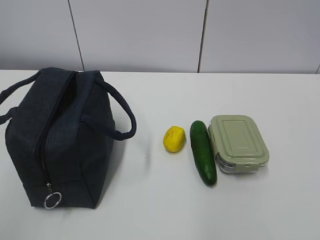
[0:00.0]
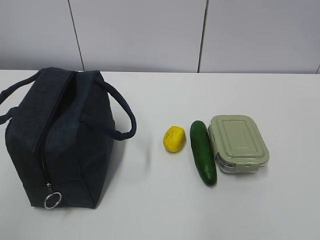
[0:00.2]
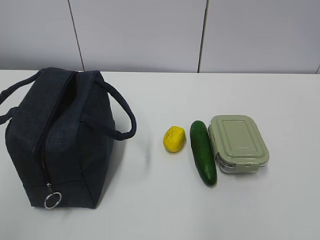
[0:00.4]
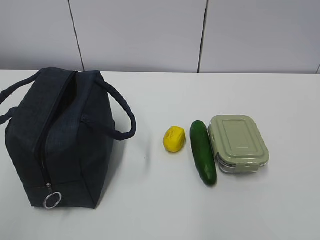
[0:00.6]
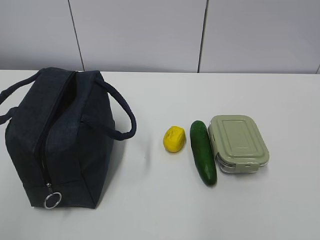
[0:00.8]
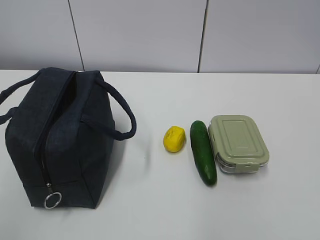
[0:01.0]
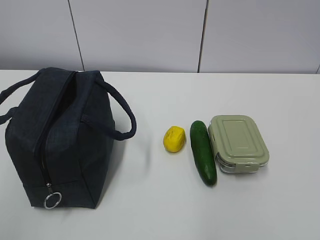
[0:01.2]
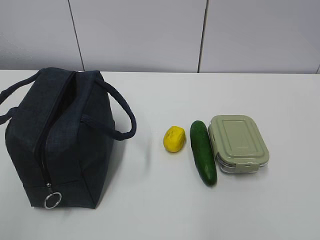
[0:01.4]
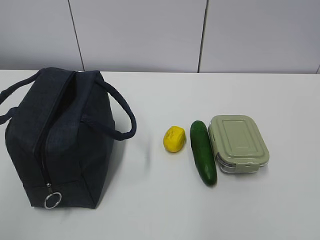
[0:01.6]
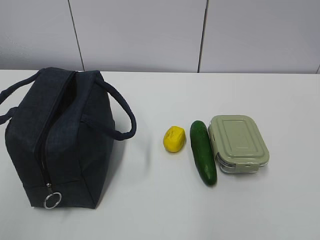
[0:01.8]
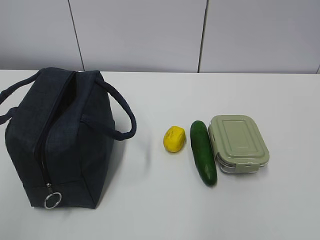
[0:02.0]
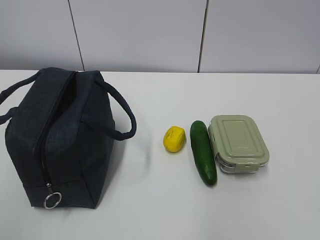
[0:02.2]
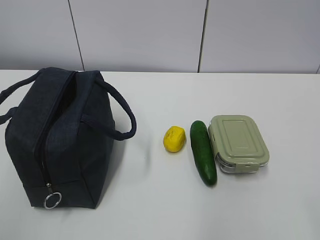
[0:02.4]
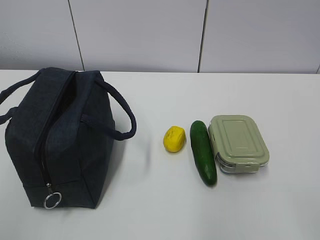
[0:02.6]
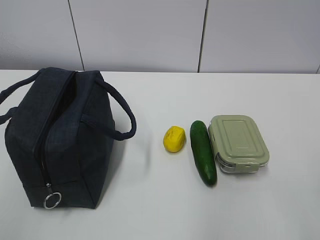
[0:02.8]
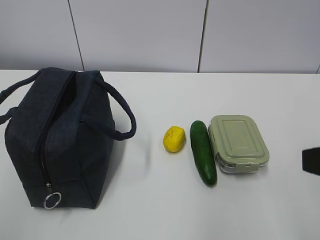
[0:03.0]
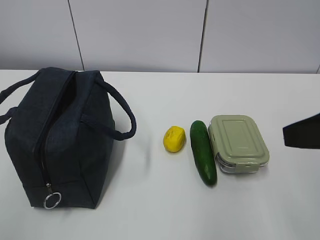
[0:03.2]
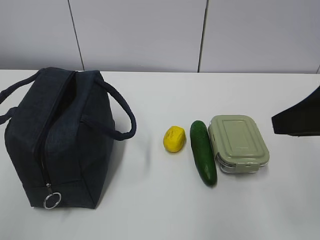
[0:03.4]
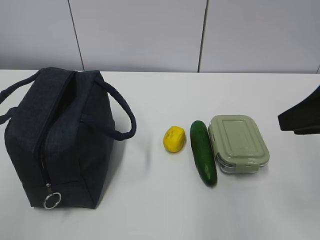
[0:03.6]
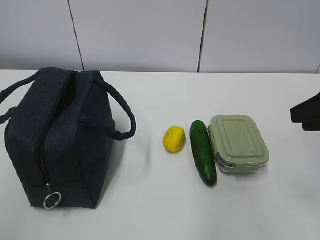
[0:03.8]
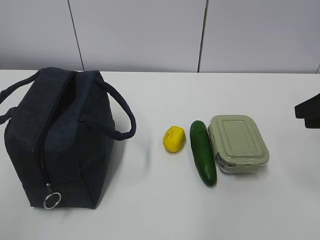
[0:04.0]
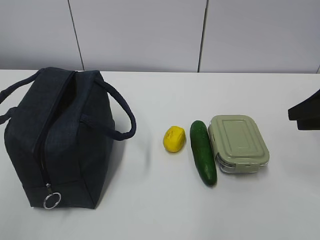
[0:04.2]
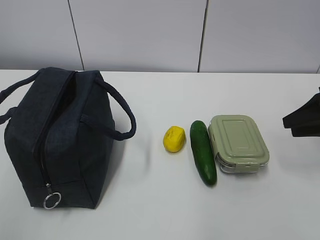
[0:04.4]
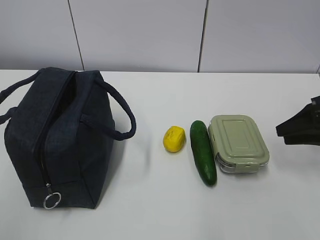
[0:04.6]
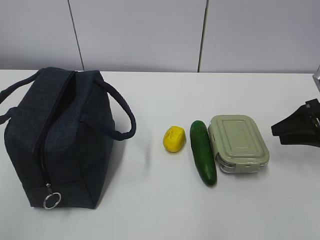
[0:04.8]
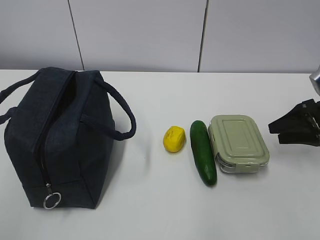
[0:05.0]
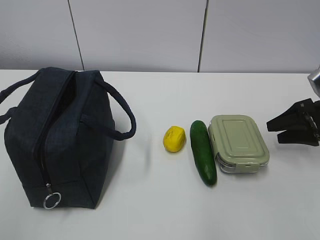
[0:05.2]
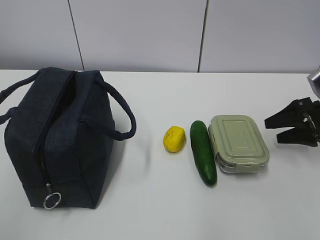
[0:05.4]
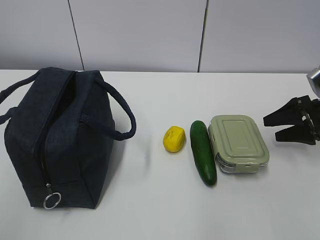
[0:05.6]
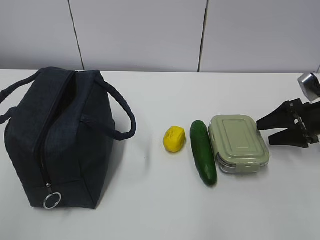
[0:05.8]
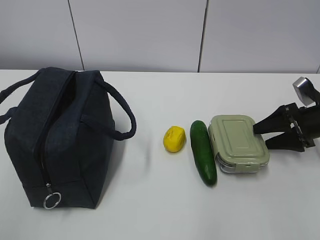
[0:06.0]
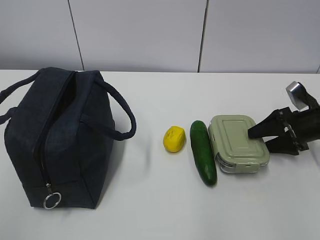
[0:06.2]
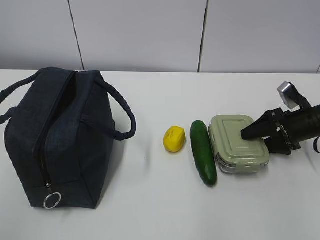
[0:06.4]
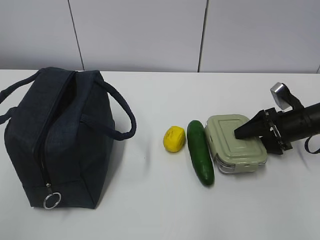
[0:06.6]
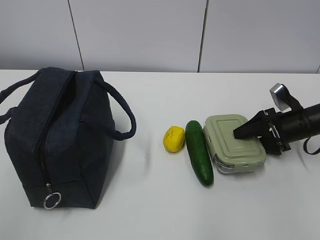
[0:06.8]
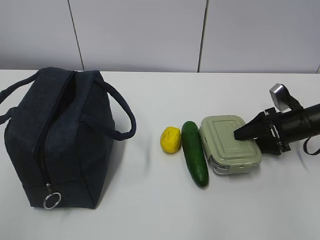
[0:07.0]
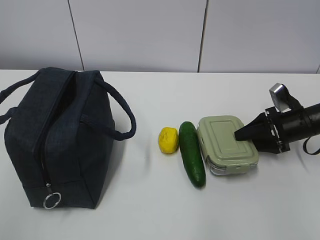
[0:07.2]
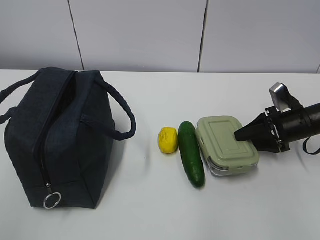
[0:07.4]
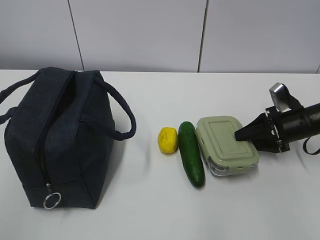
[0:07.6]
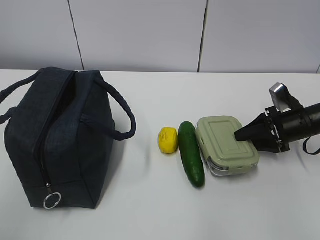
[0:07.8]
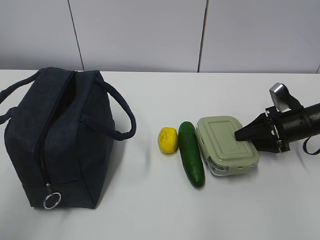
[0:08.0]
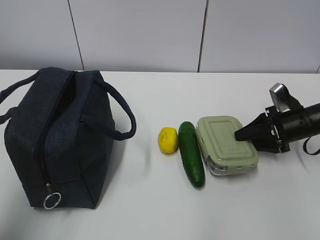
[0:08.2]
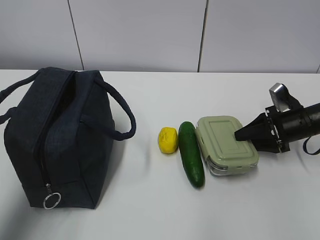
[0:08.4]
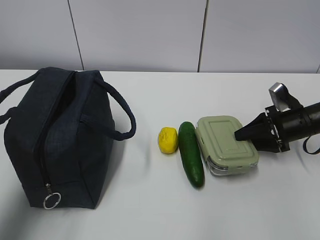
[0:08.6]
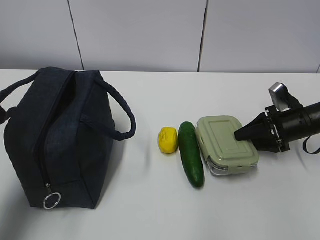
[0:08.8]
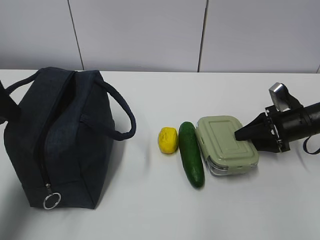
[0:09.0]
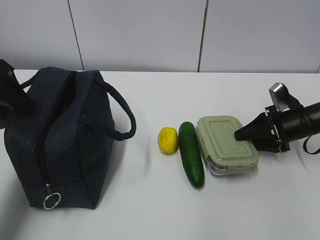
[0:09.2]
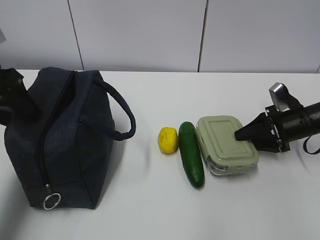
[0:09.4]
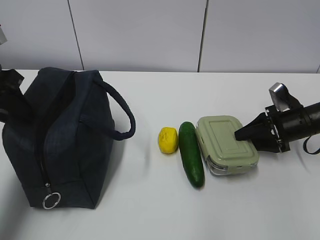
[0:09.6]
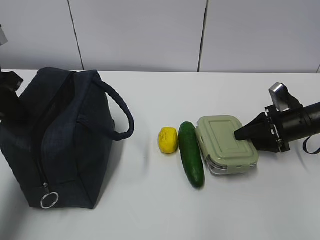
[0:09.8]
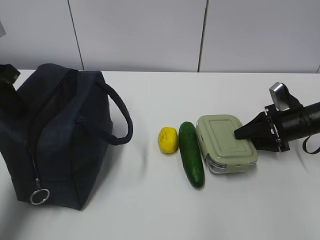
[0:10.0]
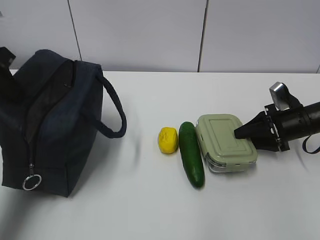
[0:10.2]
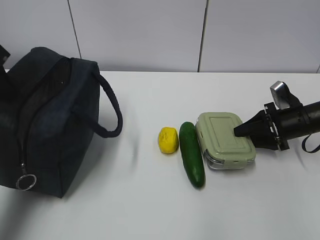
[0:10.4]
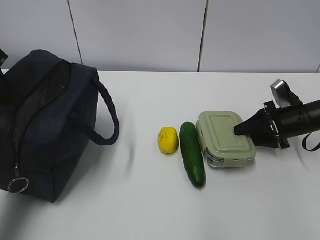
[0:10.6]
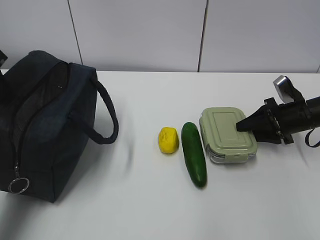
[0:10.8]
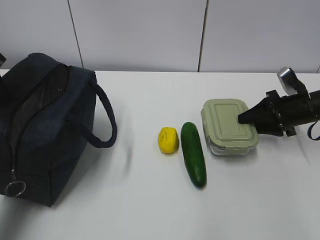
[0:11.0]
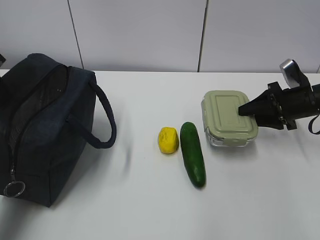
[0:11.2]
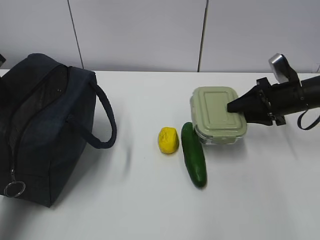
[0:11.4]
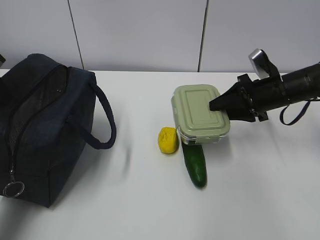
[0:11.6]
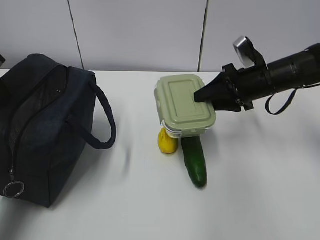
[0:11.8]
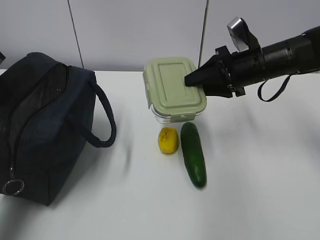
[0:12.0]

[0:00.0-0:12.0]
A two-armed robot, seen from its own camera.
Step, 0:00.0 to 0:06.0: Grab the lunch box with your right hand.
Step, 0:06.2 to 0:11.4: Grab the lunch bag with your left hand.
0:03.0 to 0:04.4: The right gripper is displaced forward, to the right and downward by some 25 cm.
0:04.4 to 0:06.0: The right gripper shifts about 10 cm downward and forward, and opens.
0:06.0 to 0:07.6: The right gripper closes.
0:07.6 to 0:09.0: The left gripper heads forward, covering roughly 25 cm, and opens.
0:09.0 to 0:10.4: The left gripper closes.
0:10.4 to 0:12.0: The right gripper shifts approximately 15 cm upward and to the left.

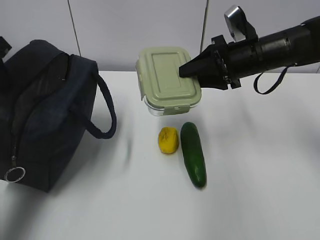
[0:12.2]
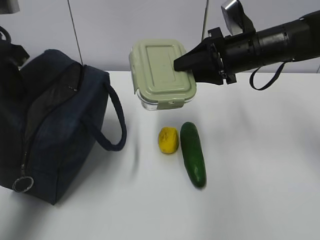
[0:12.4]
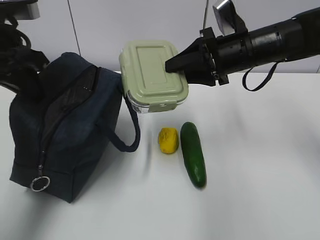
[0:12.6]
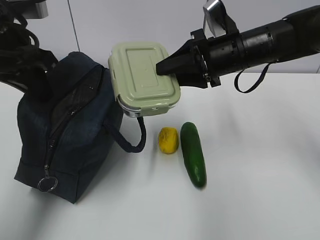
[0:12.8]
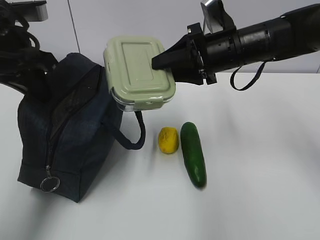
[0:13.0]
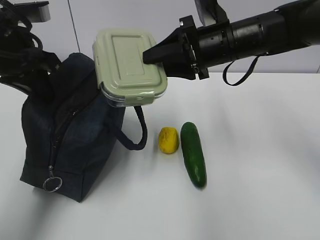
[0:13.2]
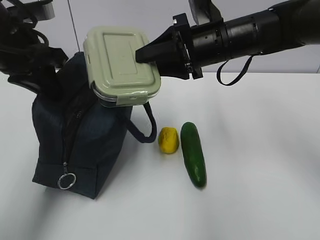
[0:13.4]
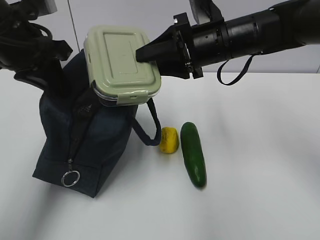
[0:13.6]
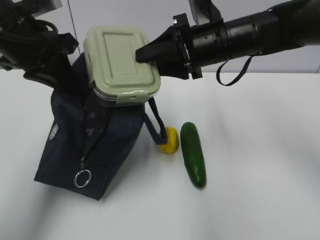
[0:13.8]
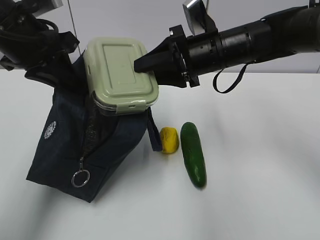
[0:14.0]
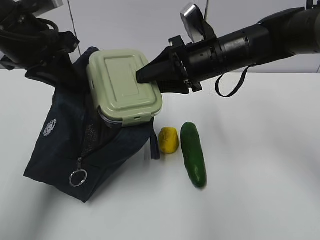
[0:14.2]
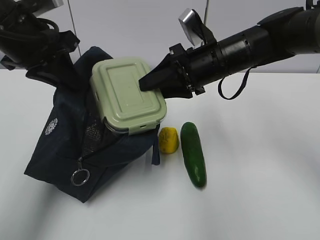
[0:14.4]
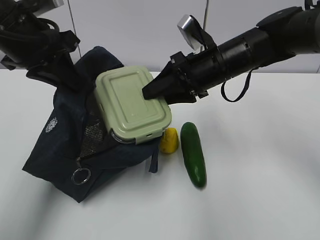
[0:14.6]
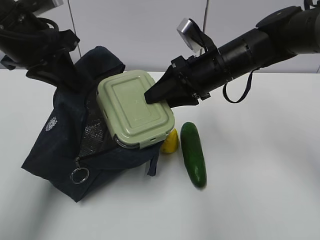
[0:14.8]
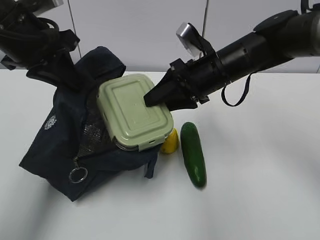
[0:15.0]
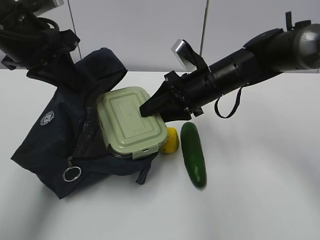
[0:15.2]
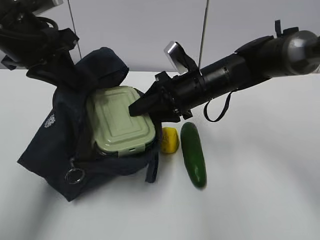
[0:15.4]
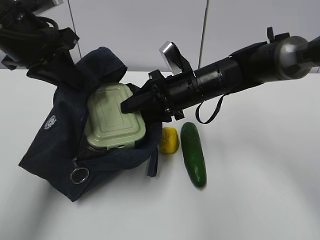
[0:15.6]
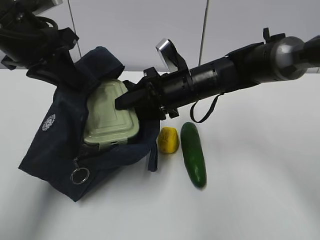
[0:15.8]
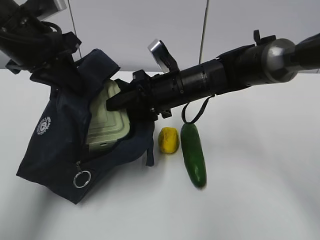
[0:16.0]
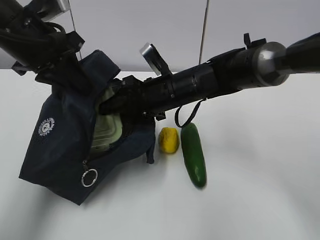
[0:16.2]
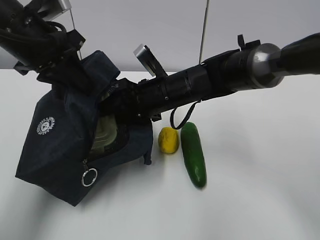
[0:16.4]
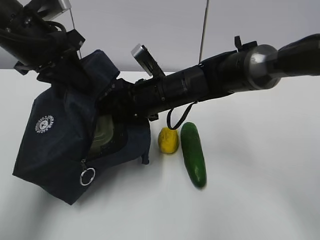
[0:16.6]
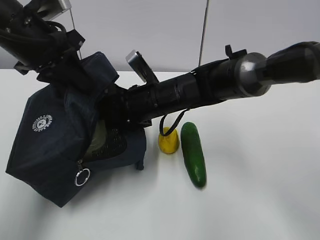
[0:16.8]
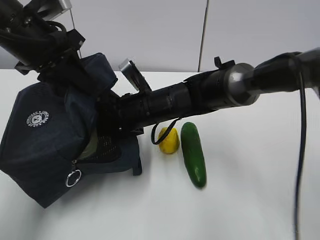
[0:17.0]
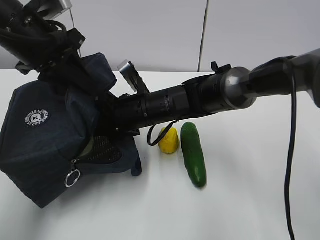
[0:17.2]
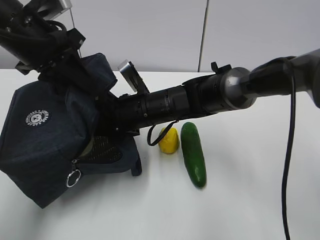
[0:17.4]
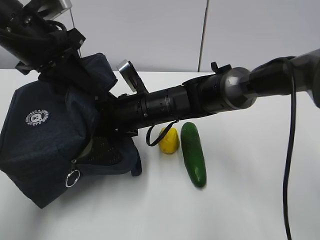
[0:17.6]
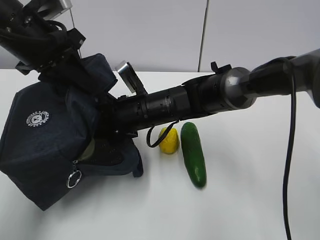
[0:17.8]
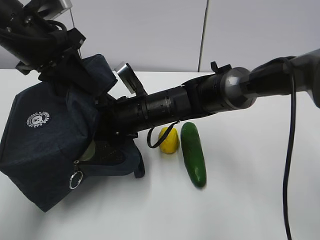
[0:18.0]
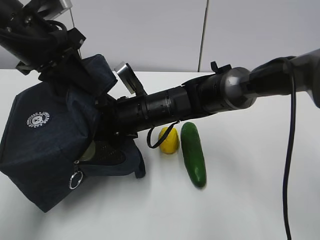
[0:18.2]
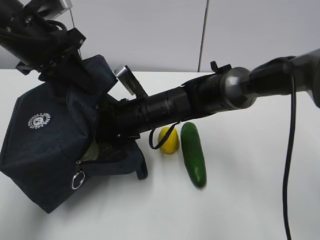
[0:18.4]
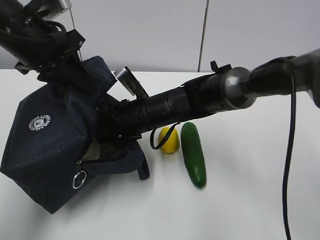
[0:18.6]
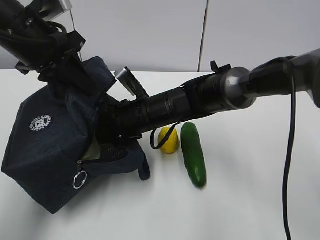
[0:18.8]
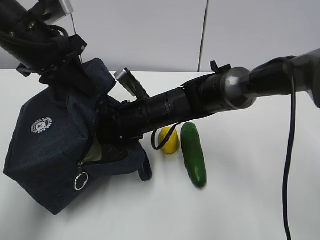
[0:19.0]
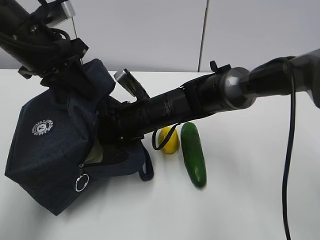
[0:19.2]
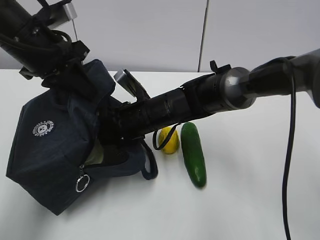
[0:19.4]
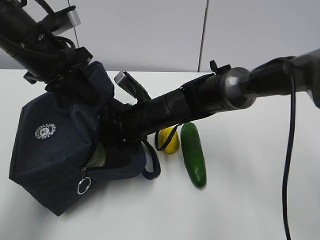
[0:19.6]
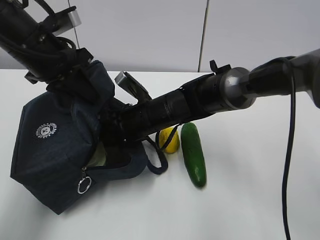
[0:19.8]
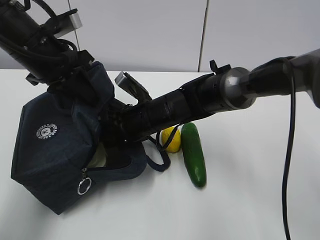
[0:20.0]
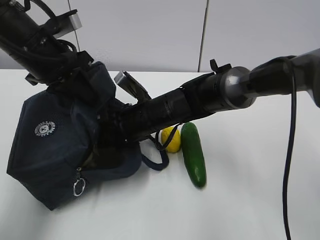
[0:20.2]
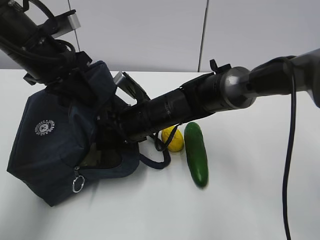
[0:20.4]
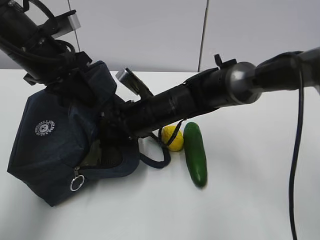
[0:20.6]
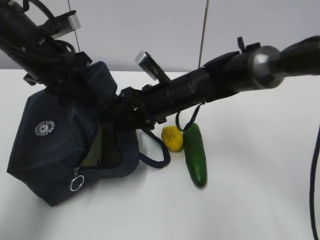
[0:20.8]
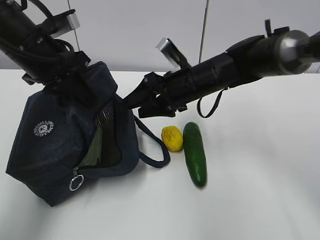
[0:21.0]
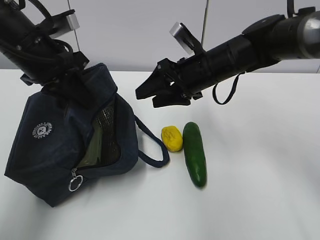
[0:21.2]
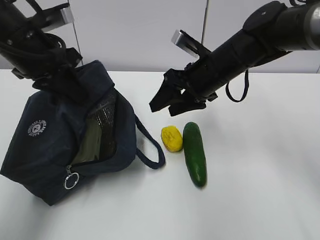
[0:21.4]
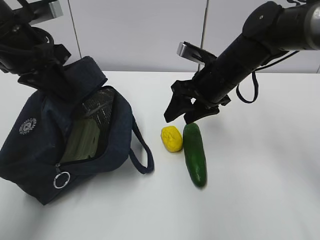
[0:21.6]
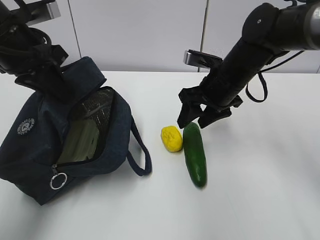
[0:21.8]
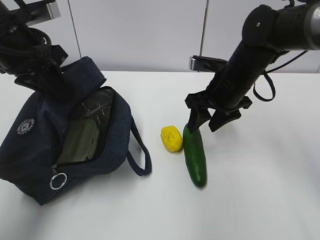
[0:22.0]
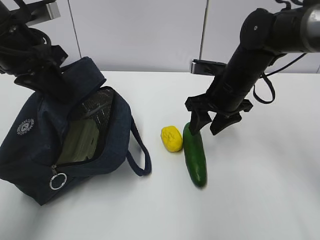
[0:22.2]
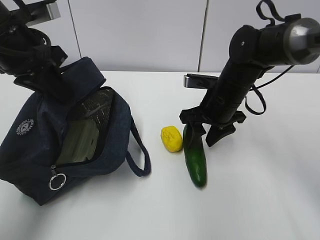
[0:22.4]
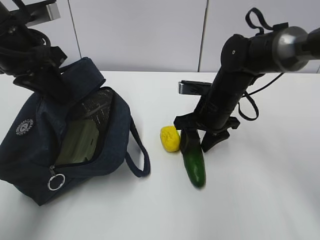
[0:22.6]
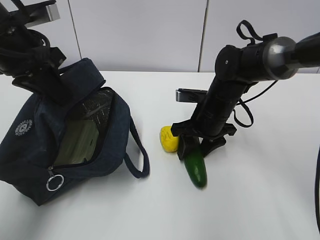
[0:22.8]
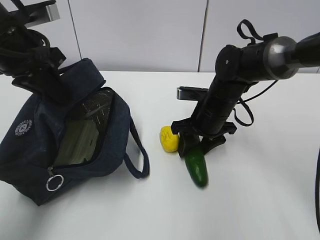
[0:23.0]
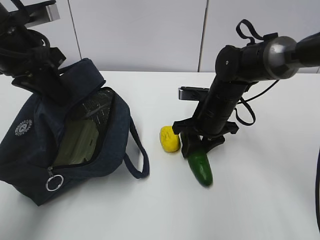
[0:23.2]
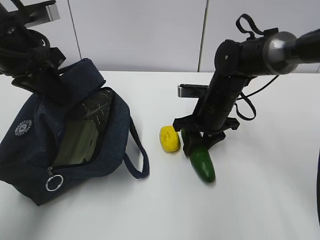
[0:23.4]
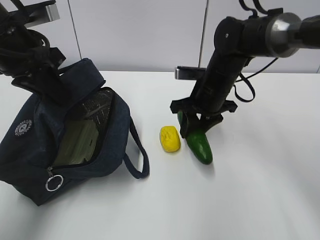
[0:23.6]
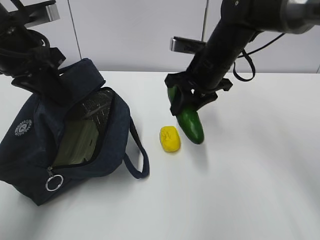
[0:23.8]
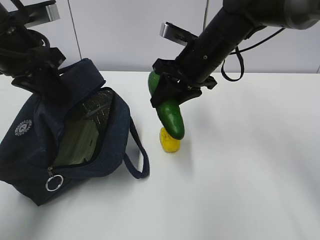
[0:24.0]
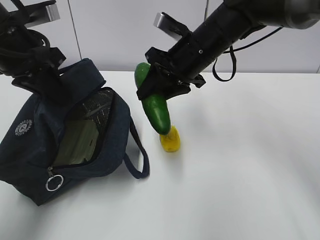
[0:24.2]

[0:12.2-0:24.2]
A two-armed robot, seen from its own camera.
Step, 0:12.2 to 0:16.8: Place it into the bag with your right hand.
Step, 0:17.2 to 0:19.2: Grab the cucumber with your right hand.
Step, 0:19.4 to 0:21.4: Place it into the bag with your right hand.
Step, 0:21.6 to 0:23.4: Grab the lemon with your right hand.
0:12.2 to 0:13.8: The left gripper travels to the right by approximately 10 cm. Meanwhile the right gripper heads to the left, covering roughly 5 cm.
0:13.8 to 0:15.2: The right gripper heads downward, covering roughly 5 cm.
0:15.2 to 0:16.6: The right gripper travels to the left by approximately 10 cm.
0:18.2 to 0:19.8: The grippers stay close to where they were, moving slightly.
0:19.8 to 0:21.2: The right gripper moves to the right and upward, about 15 cm.
0:21.2 to 0:22.6: The right gripper shifts about 5 cm downward.
0:22.6 to 0:24.2: The right gripper goes approximately 10 cm upward.
